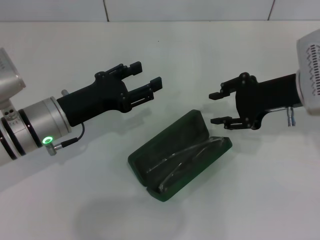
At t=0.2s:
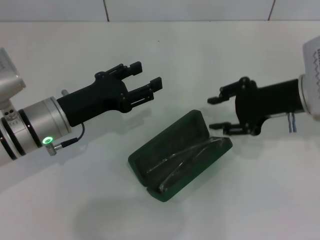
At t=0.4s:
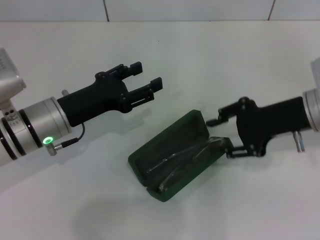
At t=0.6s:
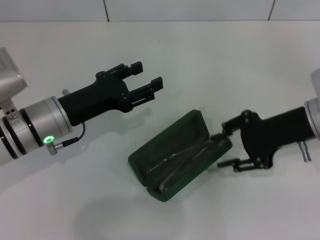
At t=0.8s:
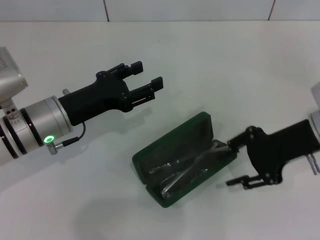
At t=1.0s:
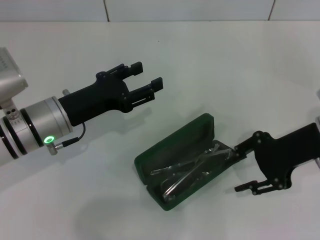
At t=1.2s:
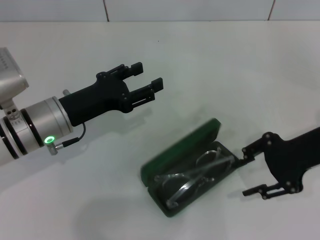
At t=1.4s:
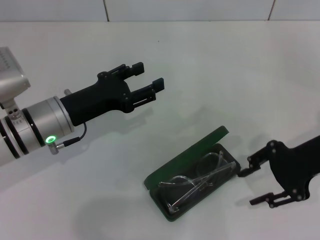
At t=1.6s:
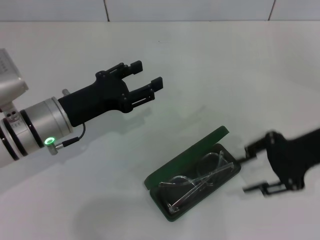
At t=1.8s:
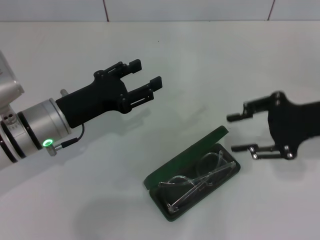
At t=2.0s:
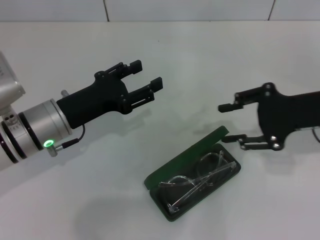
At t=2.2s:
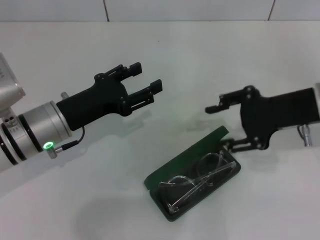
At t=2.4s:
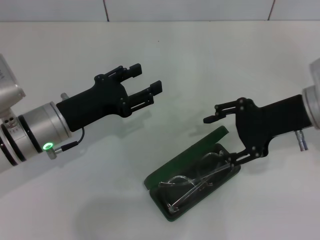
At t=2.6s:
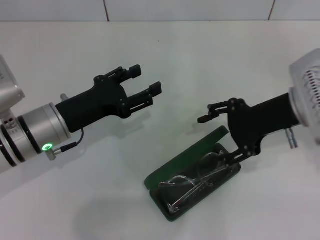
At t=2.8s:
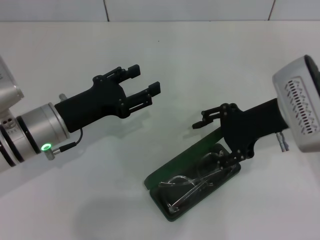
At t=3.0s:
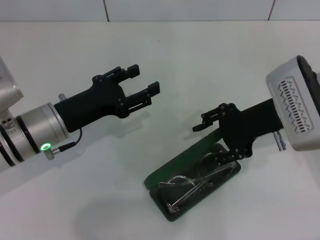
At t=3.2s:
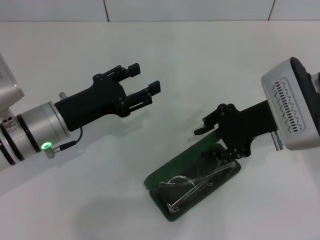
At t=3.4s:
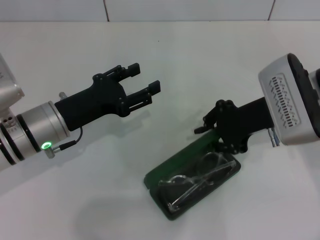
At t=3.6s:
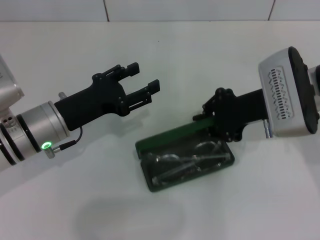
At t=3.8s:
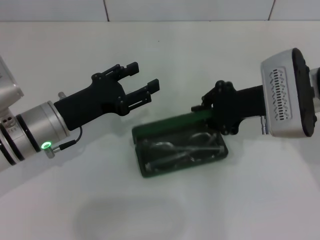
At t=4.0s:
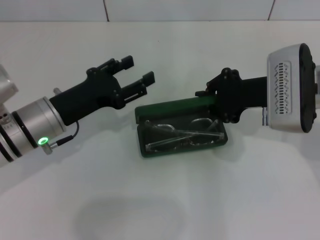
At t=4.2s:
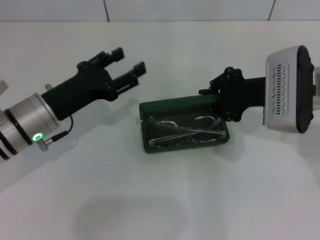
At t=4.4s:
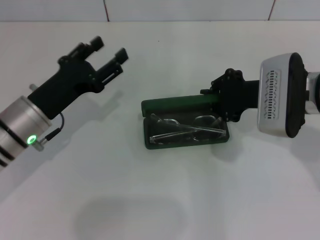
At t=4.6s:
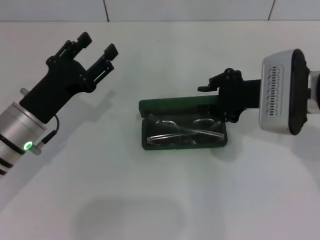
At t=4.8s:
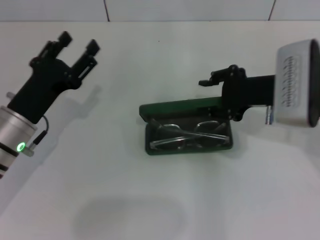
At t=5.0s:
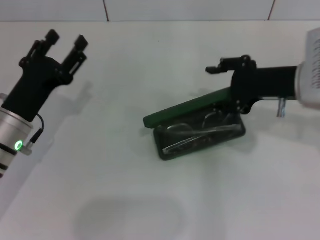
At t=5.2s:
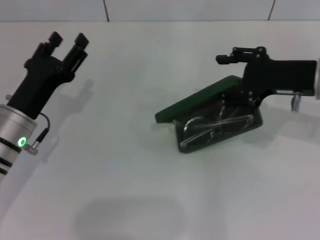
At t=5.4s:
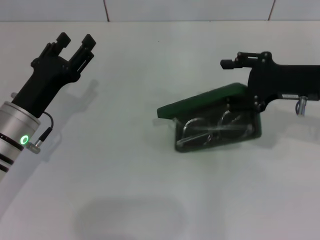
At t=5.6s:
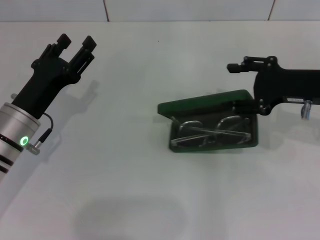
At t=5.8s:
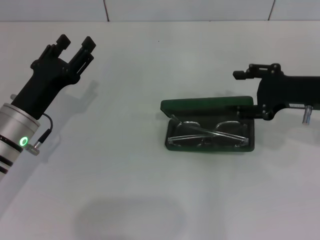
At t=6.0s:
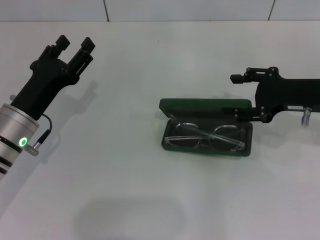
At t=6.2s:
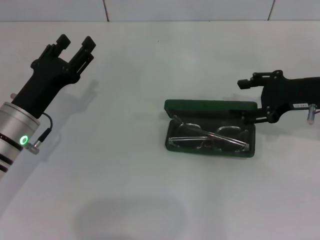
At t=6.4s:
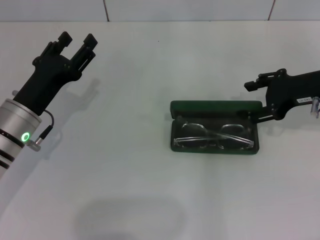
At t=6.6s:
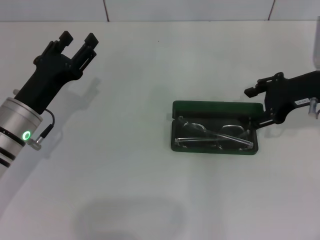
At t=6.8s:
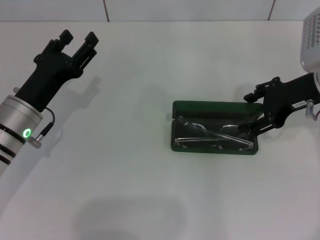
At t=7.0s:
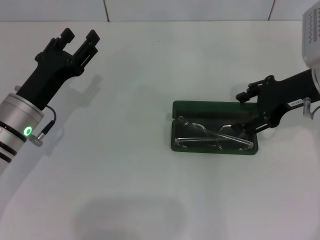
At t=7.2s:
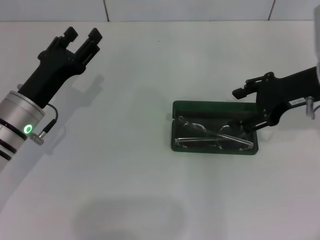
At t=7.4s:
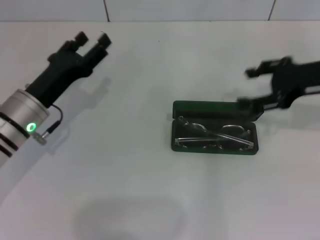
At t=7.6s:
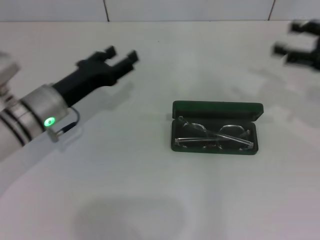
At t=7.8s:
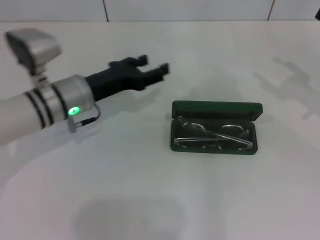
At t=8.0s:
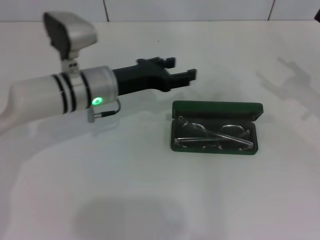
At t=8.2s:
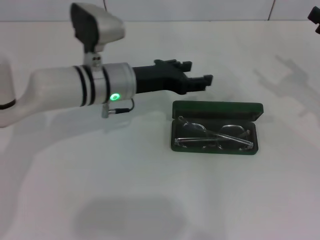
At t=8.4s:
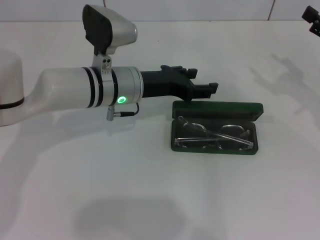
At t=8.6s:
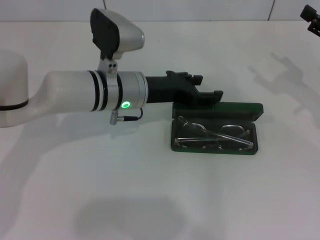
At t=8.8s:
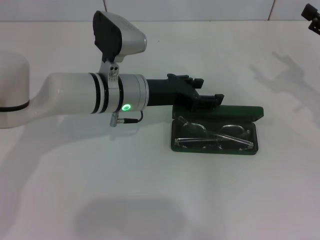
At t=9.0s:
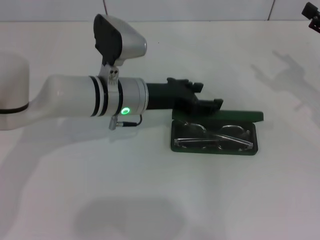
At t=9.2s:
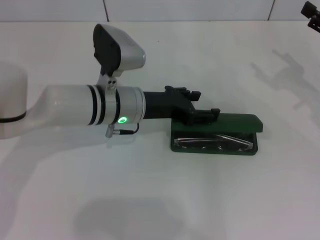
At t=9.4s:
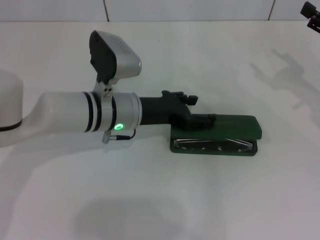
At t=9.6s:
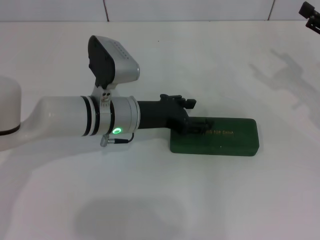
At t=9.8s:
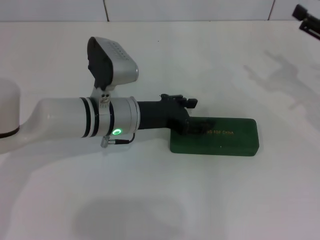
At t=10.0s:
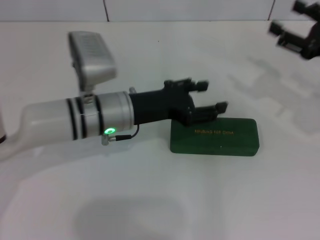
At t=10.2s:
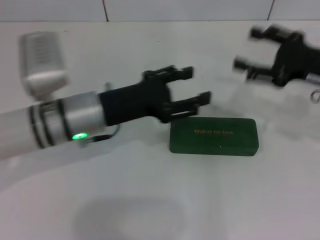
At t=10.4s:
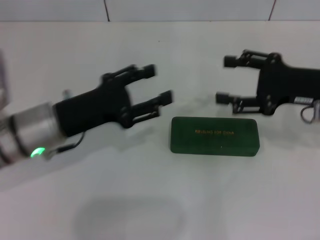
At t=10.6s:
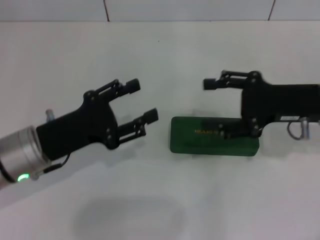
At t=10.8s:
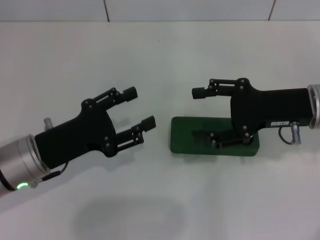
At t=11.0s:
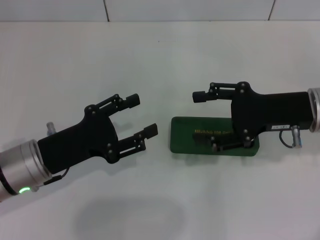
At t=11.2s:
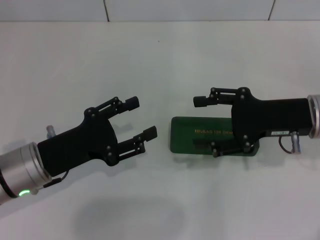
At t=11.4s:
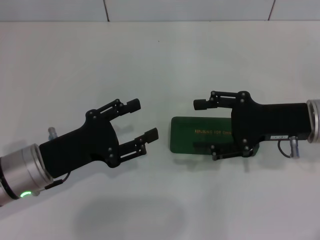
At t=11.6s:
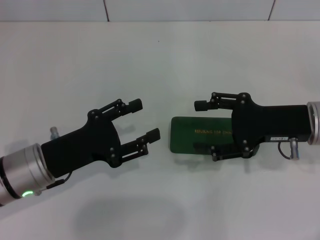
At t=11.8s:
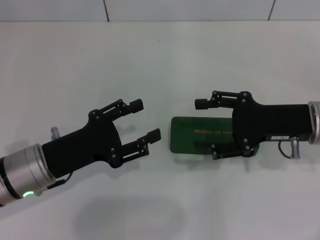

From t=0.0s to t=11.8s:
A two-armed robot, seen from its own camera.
Step, from t=0.0s to t=9.6s: Close the glasses case with your left hand.
From t=0.0s to t=1.4s: The right gripper moves backward, approximately 5 cm.
From t=1.4s to t=3.0s: The right gripper heads to the left, covering some 5 cm.
From t=3.0s to t=4.4s: The right gripper closes.
From t=4.4s to t=6.0s: The right gripper is displaced to the right by about 5 cm, and opens up.
From t=7.4s to t=8.8s: The left gripper is displaced to the right and forward by some 15 cm. The right gripper is displaced to the right by approximately 5 cm.
From t=8.8s to t=10.4s: The right gripper goes some 10 cm to the left. The left gripper heads to the left and backward, covering roughly 15 cm.
From t=10.4s to t=11.8s: The left gripper moves some 5 cm.

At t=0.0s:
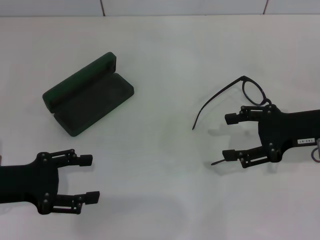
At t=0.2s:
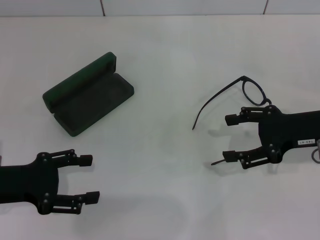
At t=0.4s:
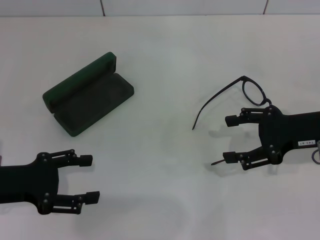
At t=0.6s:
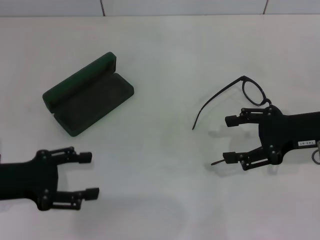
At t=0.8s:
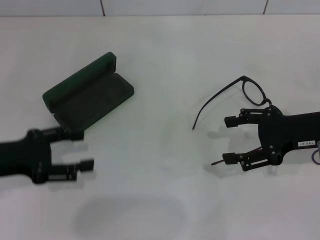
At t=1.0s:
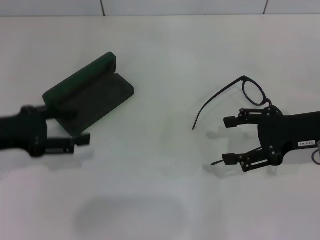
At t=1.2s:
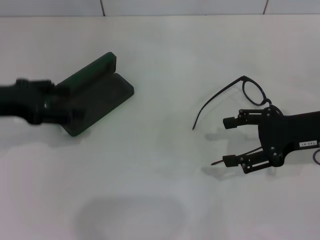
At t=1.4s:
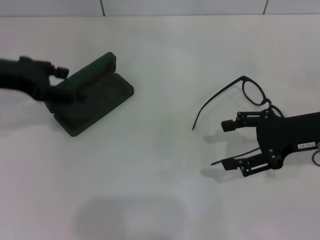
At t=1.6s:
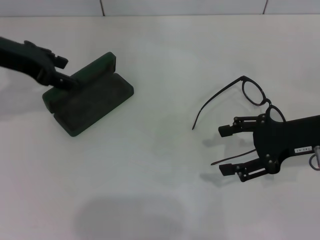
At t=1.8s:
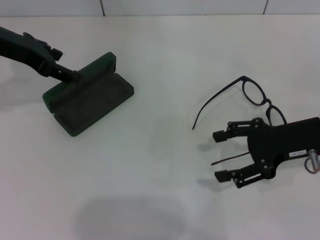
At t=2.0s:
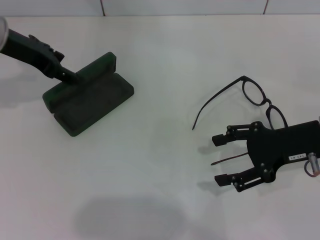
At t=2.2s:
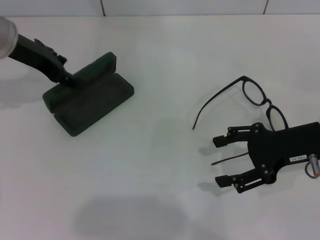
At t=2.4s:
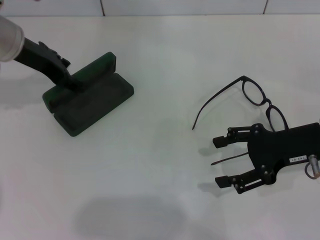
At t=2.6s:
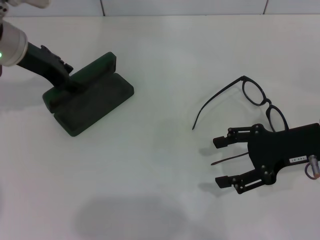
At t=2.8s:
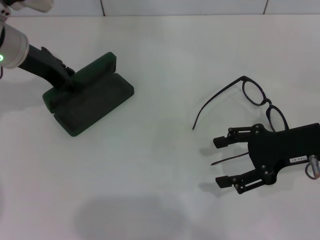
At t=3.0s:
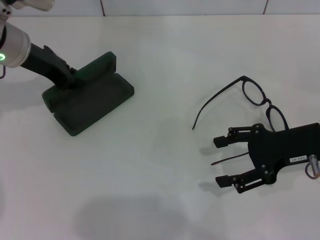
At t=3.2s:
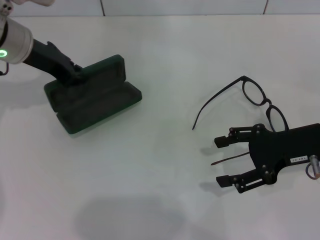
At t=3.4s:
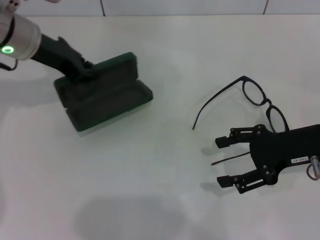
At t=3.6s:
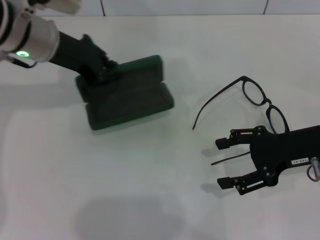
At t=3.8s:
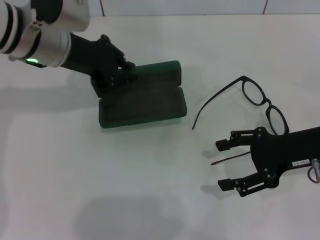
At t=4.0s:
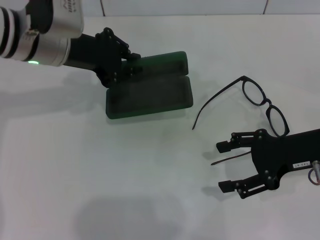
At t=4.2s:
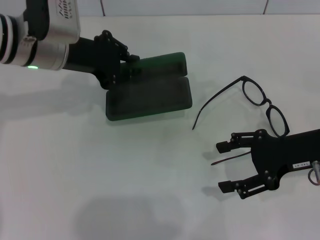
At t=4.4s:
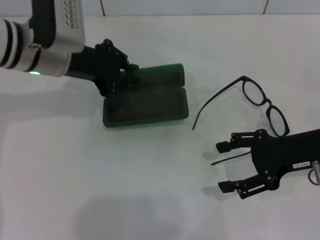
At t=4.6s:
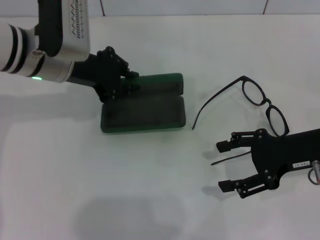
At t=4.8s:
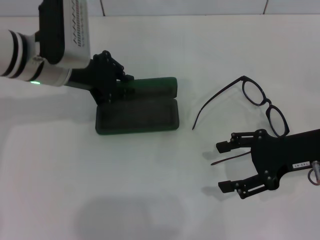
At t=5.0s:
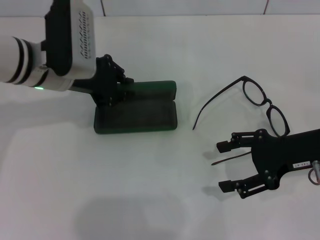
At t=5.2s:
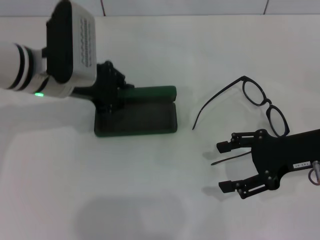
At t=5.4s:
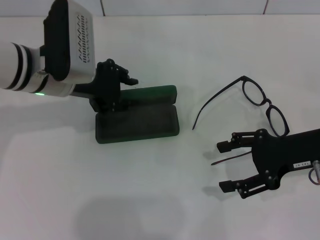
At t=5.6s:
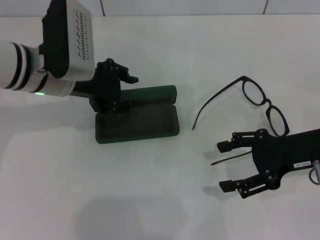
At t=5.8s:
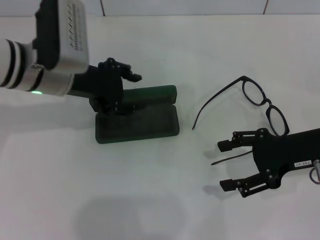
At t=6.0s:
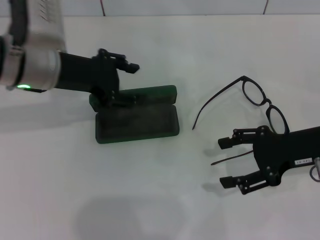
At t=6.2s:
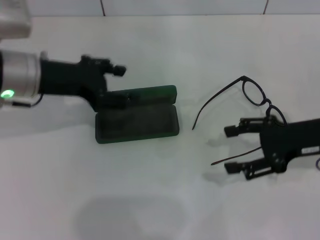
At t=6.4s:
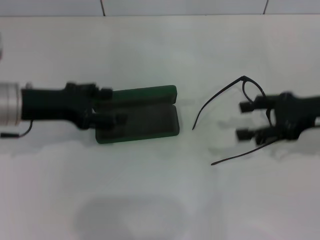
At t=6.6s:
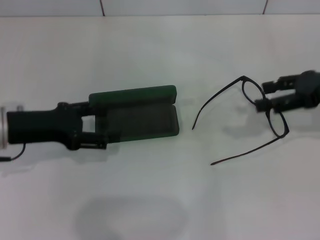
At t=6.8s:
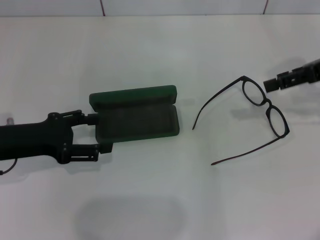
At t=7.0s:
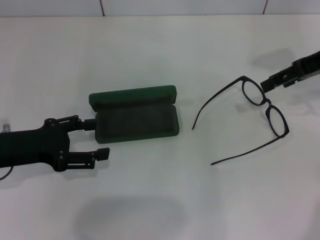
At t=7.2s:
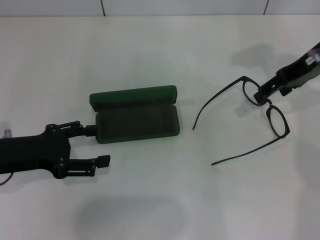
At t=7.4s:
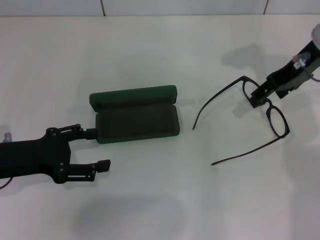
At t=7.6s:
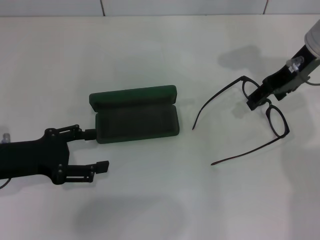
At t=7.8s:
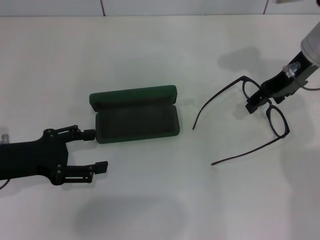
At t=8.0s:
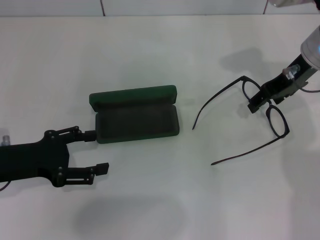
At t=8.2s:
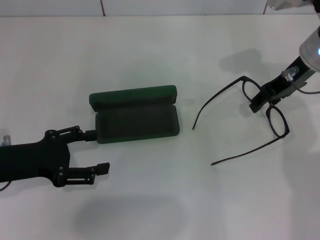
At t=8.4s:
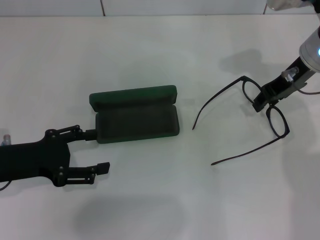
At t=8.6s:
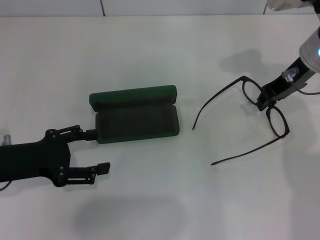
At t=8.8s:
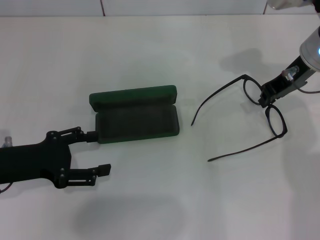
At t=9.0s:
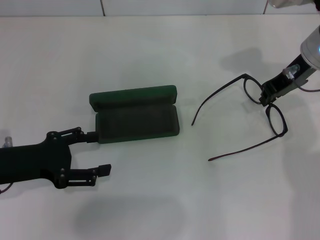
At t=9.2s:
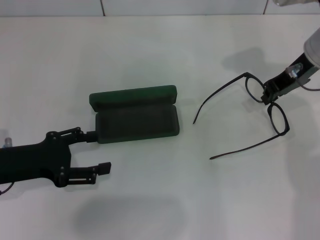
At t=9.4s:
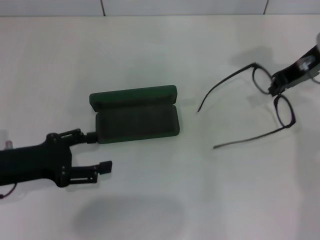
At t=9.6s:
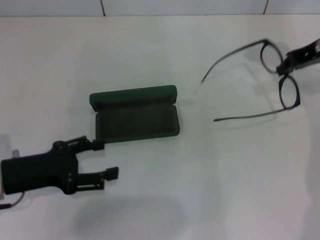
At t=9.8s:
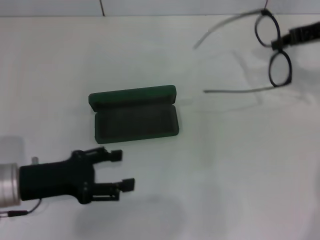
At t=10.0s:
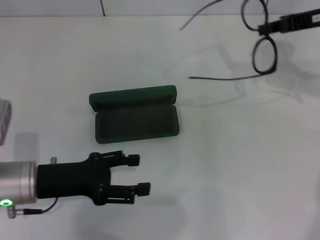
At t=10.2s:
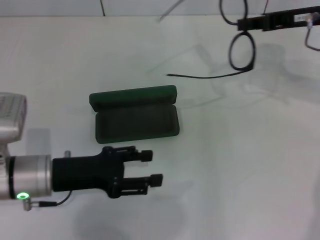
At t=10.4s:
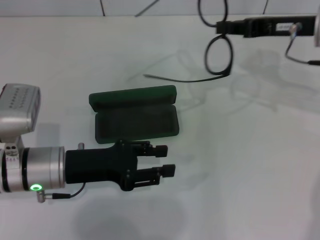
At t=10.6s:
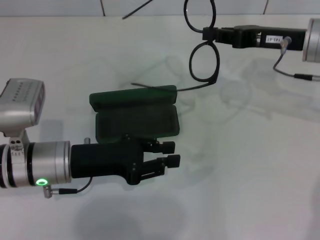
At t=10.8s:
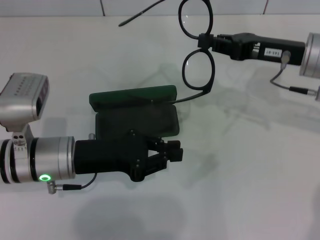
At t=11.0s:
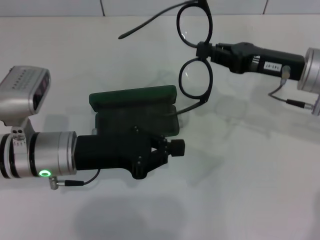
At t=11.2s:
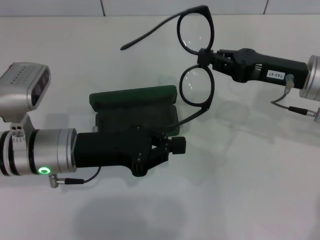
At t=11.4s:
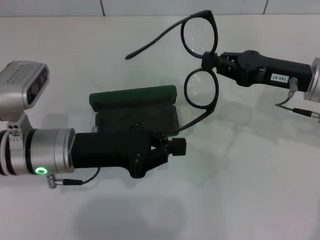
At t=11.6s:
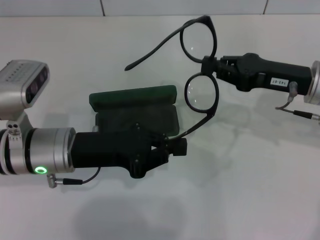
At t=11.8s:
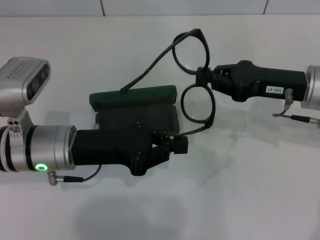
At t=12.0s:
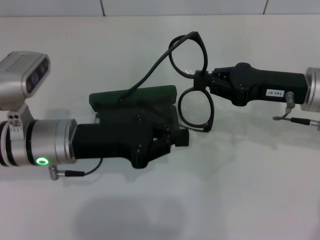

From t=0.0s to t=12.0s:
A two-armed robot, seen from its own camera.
Step, from t=0.0s to t=3.0s: Grab the glasses case with your left hand.
Step, from t=3.4s to t=5.4s: Place the glasses case in the center of the table with your left hand.
Step, from t=5.6s to t=9.0s: Grab the eyeglass frame with your right hand.
From t=0.0s to t=1.6s: The left gripper travels forward and upward by approximately 20 cm.
From t=1.6s to t=3.0s: The left gripper changes place by roughly 5 cm, and closes its fingers.
From t=3.0s to t=4.4s: The left gripper moves approximately 5 cm.
From t=4.4s to t=6.0s: The left gripper opens its fingers.
From t=6.0s to t=7.6s: The left gripper moves backward, to the left and downward, about 15 cm. The right gripper heads forward and upward, covering about 15 cm.
From t=7.6s to t=9.0s: The right gripper closes its fingers.
From t=9.0s to t=10.4s: The left gripper goes some 10 cm to the right.
From t=10.4s to t=12.0s: The right gripper moves backward and downward, approximately 10 cm. Meanwhile the left gripper closes its fingers.
